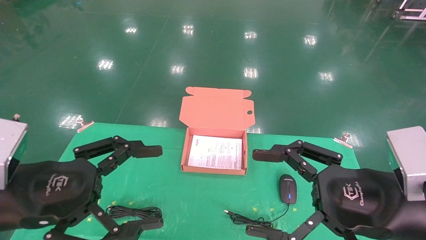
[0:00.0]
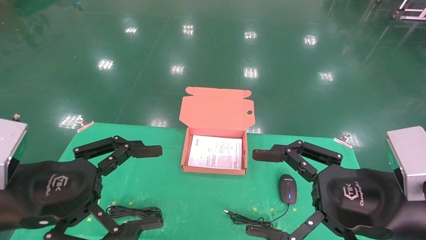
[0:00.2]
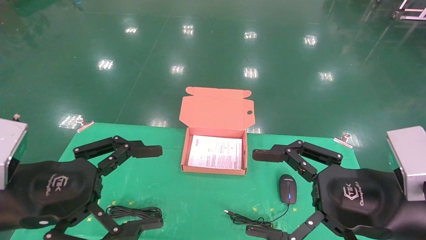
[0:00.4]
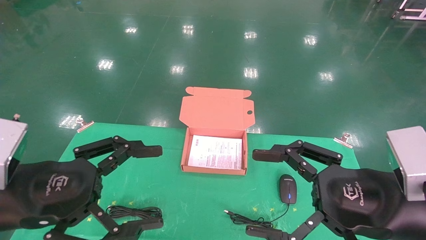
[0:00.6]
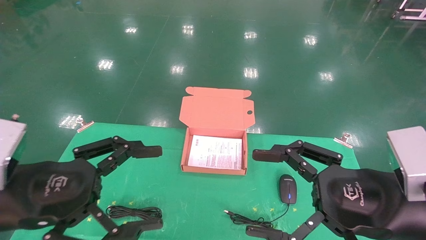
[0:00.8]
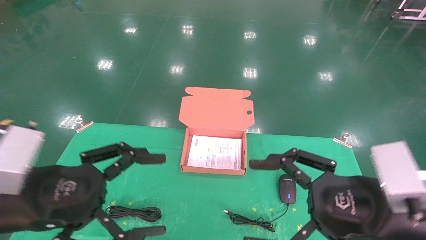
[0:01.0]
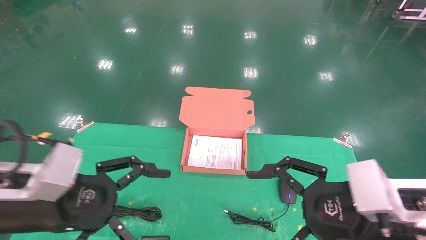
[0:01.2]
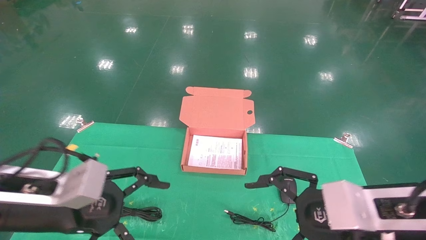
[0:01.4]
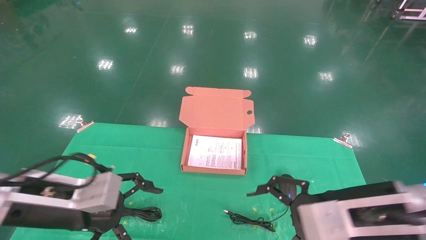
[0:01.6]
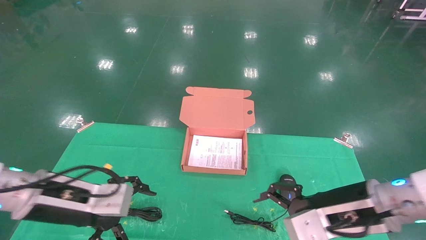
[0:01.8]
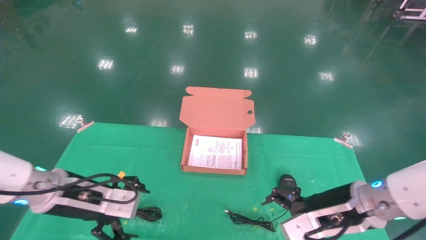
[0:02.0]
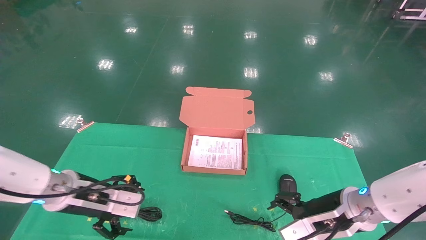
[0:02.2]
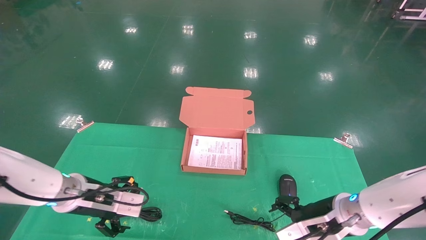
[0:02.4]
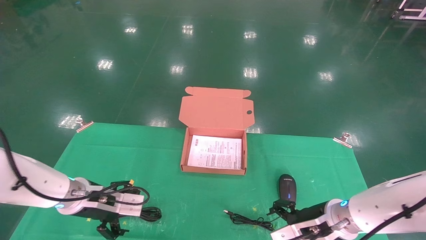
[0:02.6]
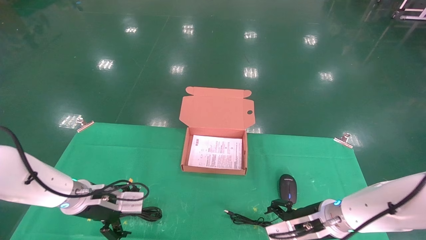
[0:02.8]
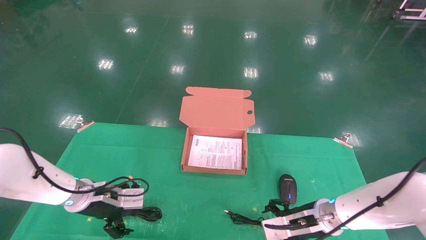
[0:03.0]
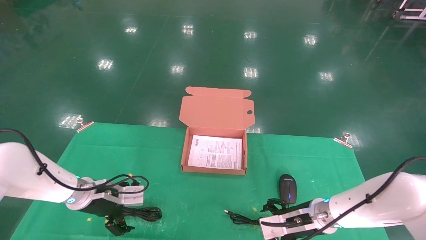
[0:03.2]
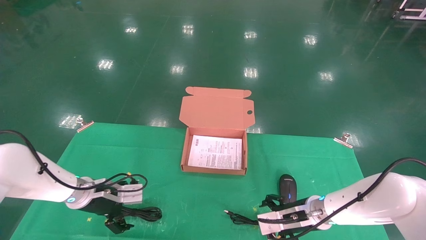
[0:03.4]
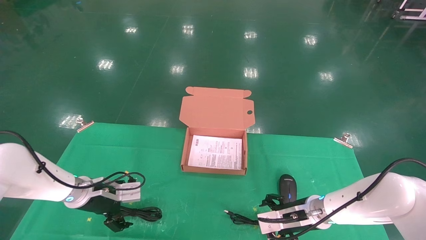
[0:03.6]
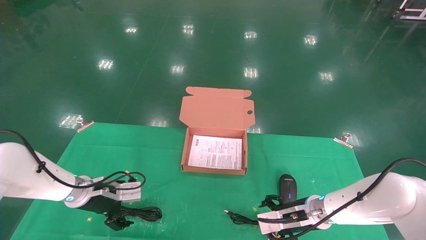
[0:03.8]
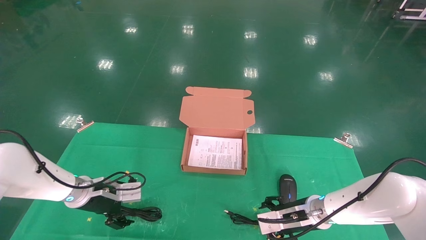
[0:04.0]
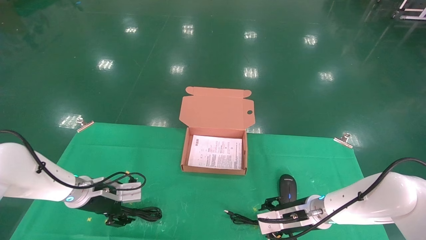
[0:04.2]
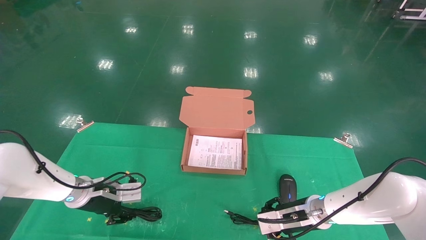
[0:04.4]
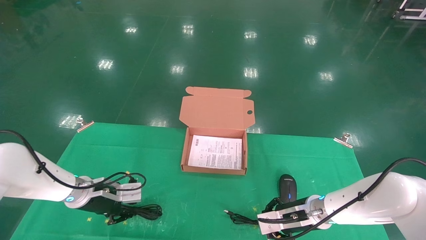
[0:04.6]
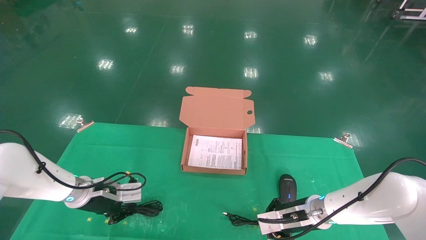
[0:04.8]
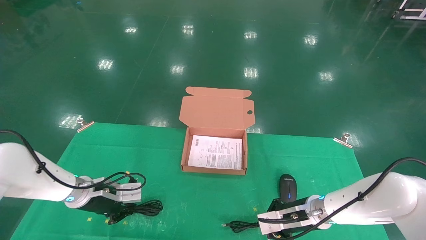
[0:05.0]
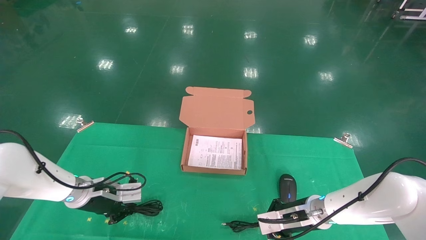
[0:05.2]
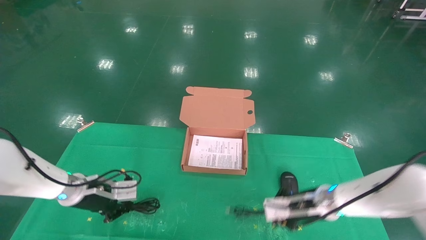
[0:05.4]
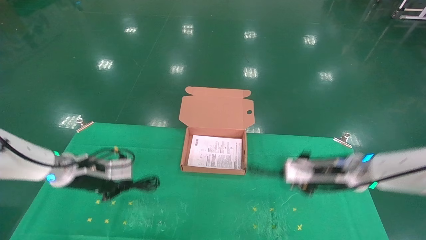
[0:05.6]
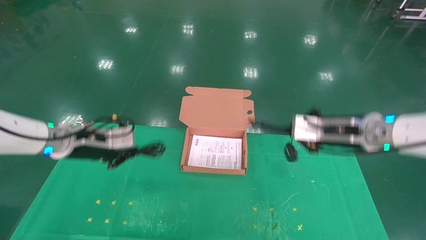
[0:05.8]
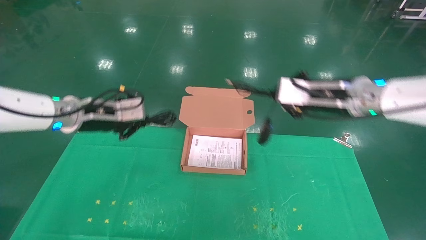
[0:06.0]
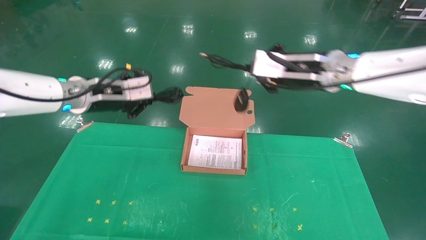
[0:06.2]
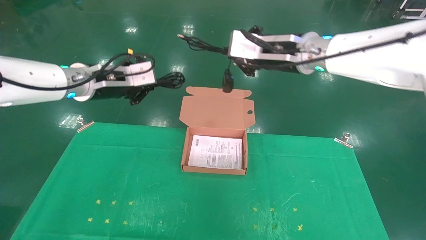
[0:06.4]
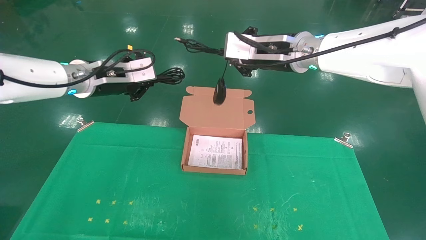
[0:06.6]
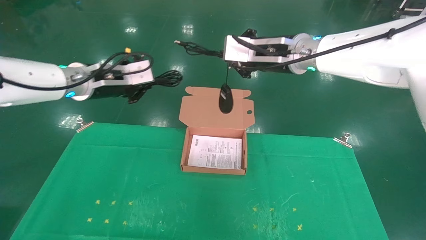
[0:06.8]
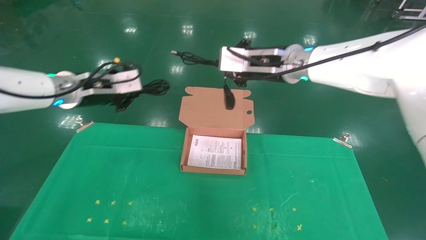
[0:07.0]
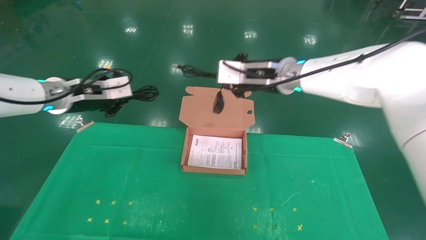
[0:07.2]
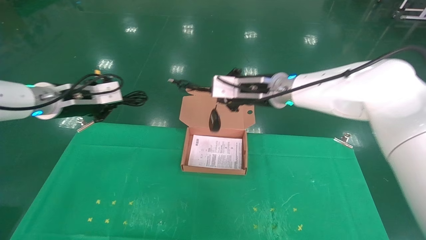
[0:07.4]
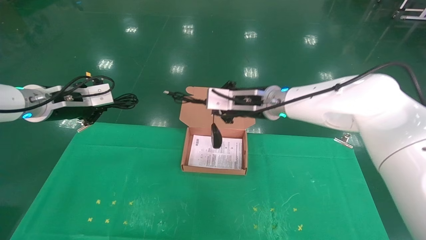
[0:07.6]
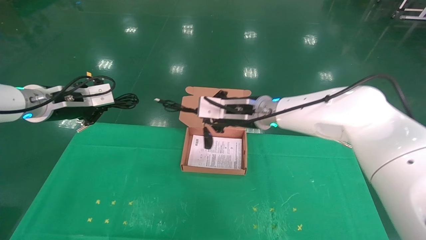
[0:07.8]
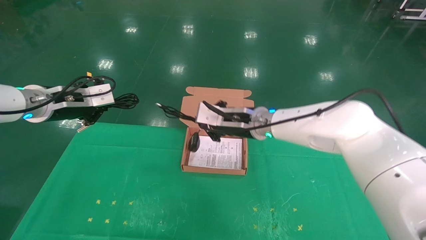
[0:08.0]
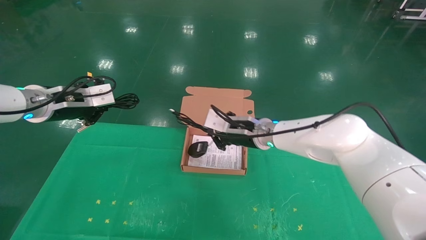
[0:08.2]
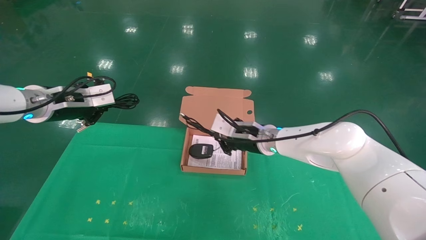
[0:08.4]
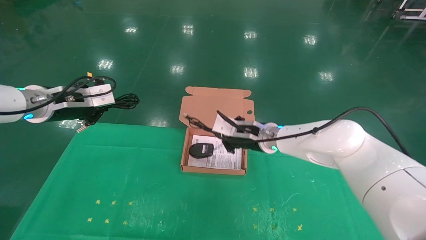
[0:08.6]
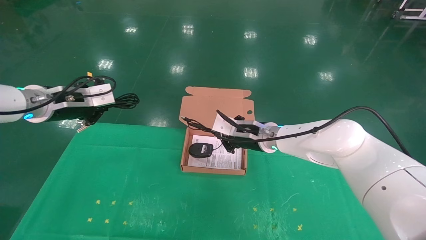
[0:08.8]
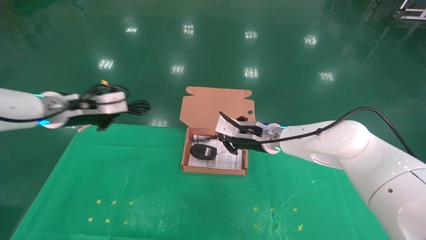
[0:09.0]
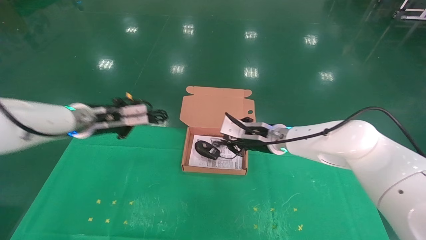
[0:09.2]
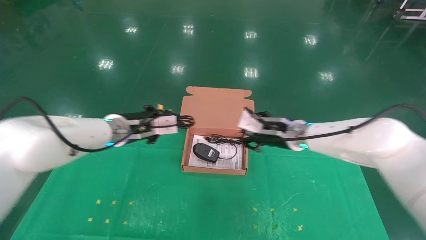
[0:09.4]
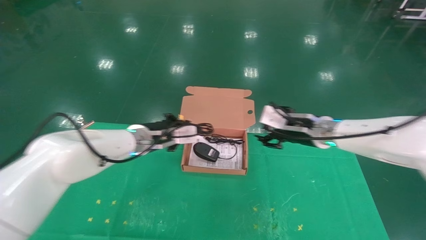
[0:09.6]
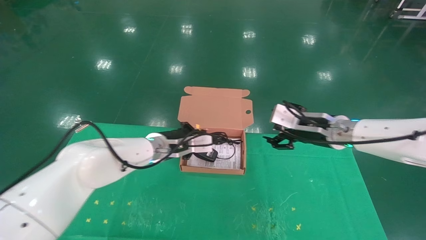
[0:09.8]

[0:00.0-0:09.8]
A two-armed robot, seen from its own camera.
Task of the whole recording: grasp data cable left put into box grasp mouse right put into box.
Step, 0:01.4 to 0:06.0: Grab and pick up both the mouse and power cord from the accessory packaging area at the same time.
0:00.0 to 0:01.4: The left gripper changes place by some 5 cm.
0:01.4 to 0:02.8: The two grippers go some 20 cm forward and downward.
0:02.8 to 0:04.2: The right gripper changes place by about 5 cm.
0:04.2 to 0:05.6: The left gripper is displaced upward by about 10 cm, and closes its fingers; the right gripper moves upward, approximately 15 cm, and closes.
0:05.6 to 0:07.0: The left gripper is displaced upward by approximately 15 cm. Meanwhile the right gripper goes about 25 cm upward and to the left.
0:07.0 to 0:08.4: The left gripper is displaced to the left by some 5 cm. The right gripper shifts some 15 cm downward.
0:08.4 to 0:09.8: The right gripper moves to the right, about 15 cm, and opens up; the left gripper moves to the right and downward, approximately 25 cm.

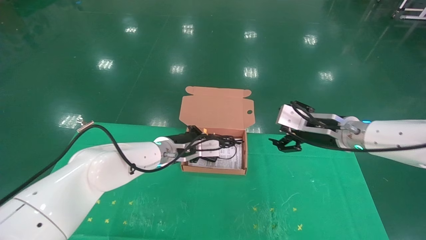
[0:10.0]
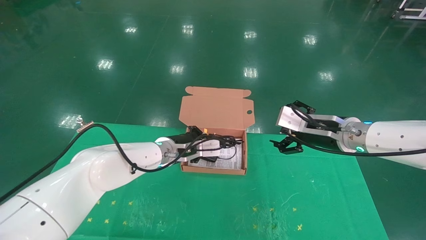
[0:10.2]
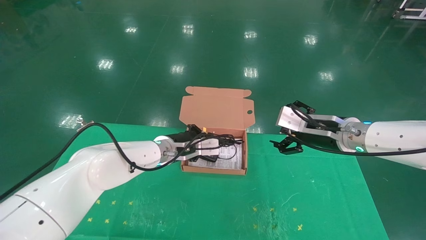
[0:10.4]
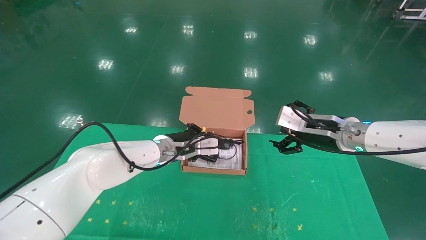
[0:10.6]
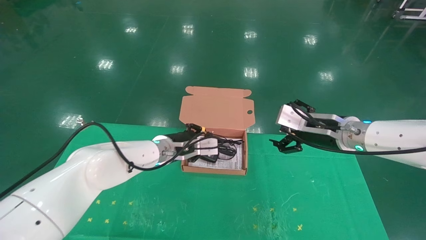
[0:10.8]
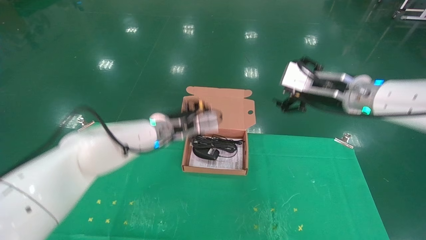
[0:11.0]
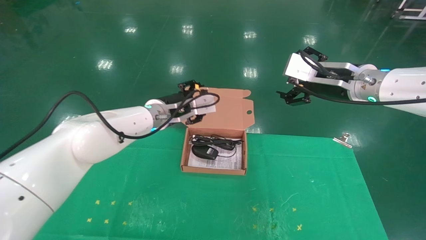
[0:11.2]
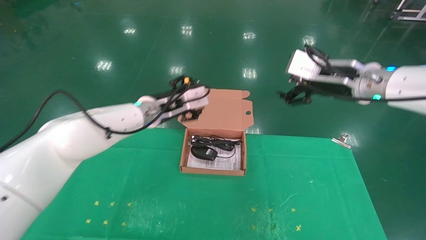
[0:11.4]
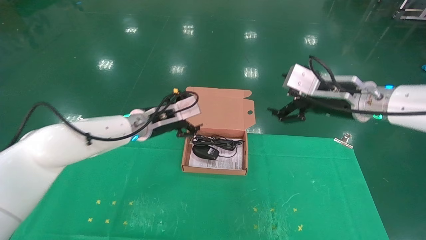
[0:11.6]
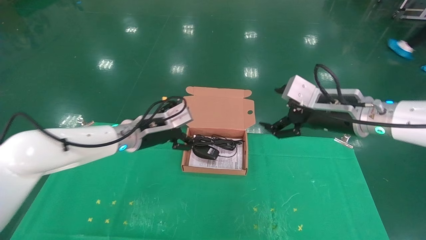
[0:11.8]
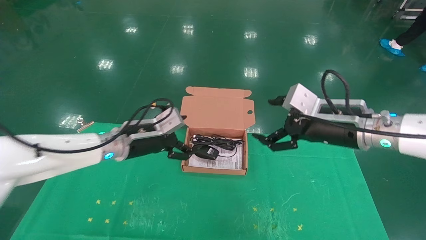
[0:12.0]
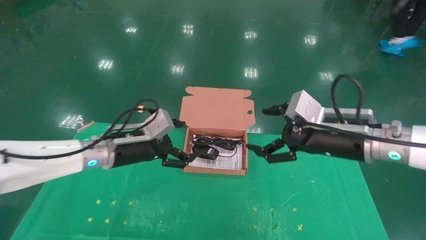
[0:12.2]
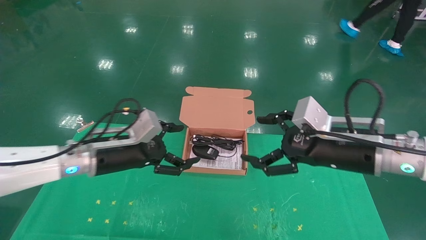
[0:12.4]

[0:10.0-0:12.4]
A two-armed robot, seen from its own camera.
Task of the whole recording: grasp data cable left put into box grasp mouse right put into box.
0:10.0 to 0:11.2: The two grippers go approximately 10 cm upward. The left gripper opens.
0:11.2 to 0:12.4: The left gripper travels backward and to the left by approximately 15 cm, and opens its fingers. Meanwhile the right gripper heads backward and downward, covering about 10 cm.
